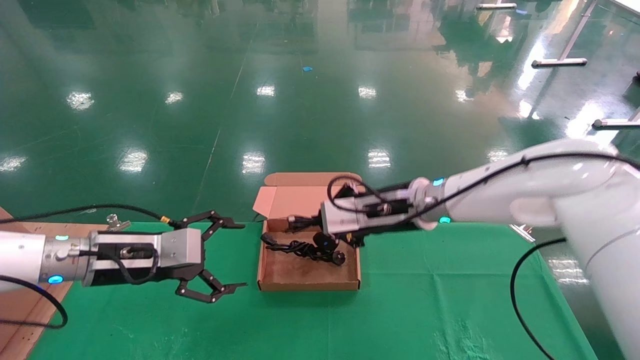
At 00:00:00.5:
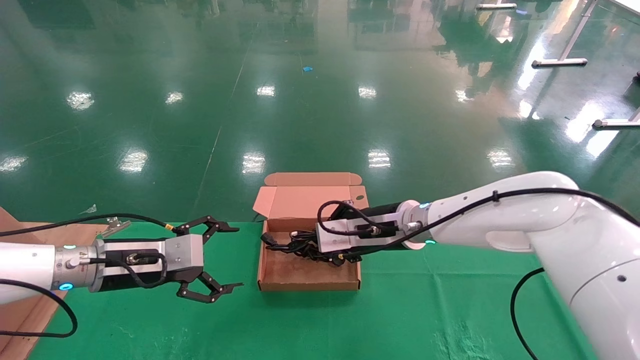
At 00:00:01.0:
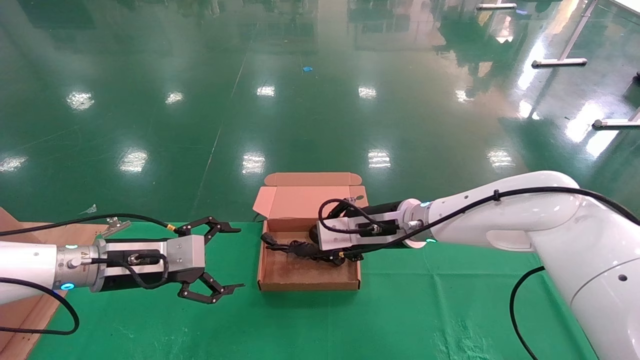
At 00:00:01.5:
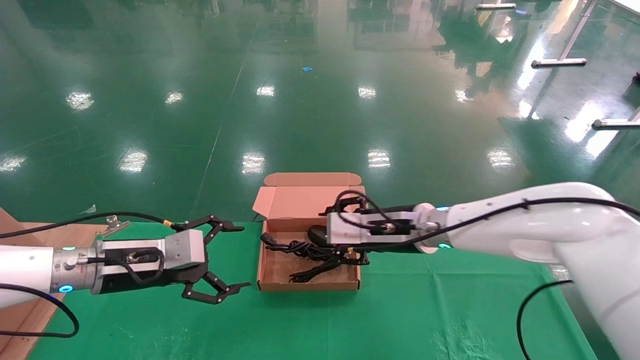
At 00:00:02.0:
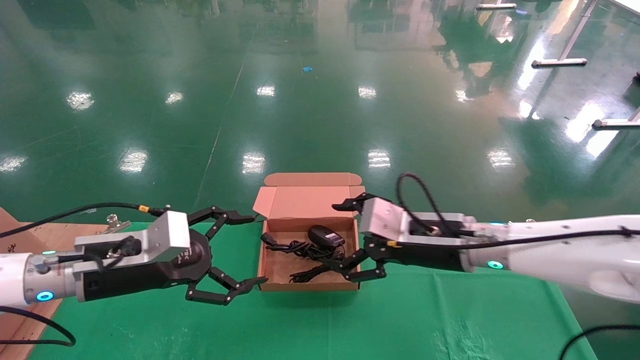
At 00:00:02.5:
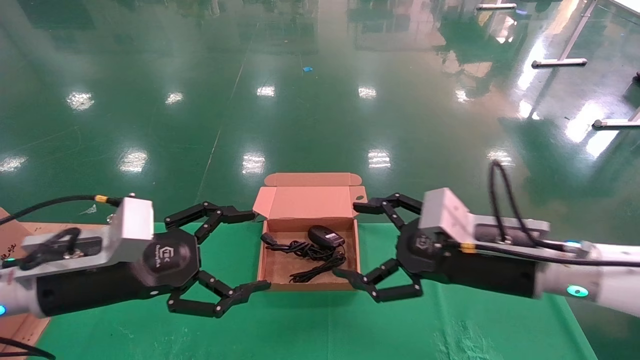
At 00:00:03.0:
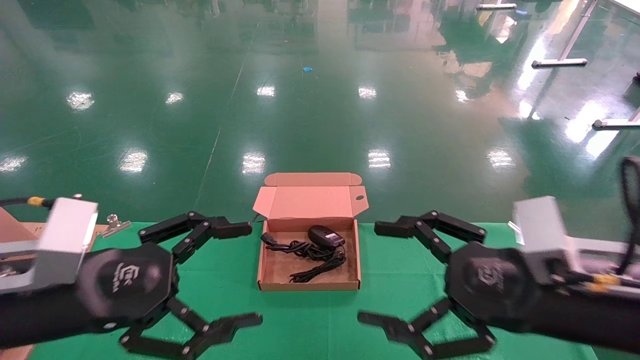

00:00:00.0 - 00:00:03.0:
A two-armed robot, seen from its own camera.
00:00:00.0 - 00:00:01.5: The right gripper opens its fingers.
00:00:01.5 - 00:00:03.0: The right gripper travels backward and to the right by roughly 25 cm, and opens up; the left gripper heads backward, covering approximately 15 cm.
